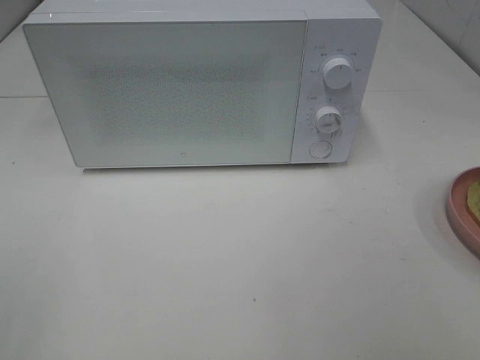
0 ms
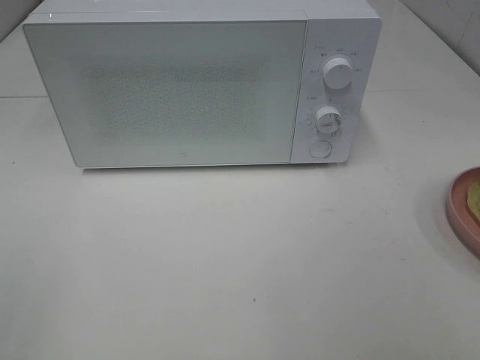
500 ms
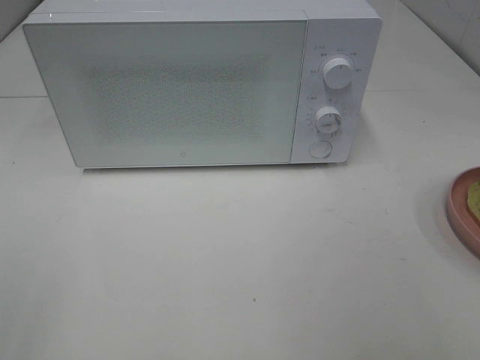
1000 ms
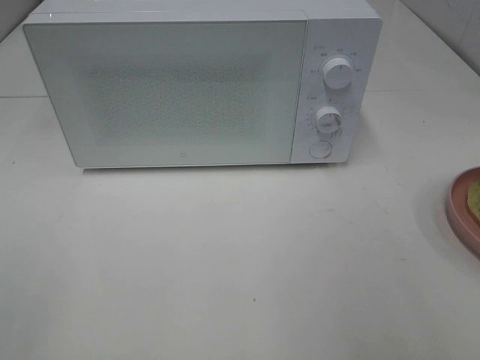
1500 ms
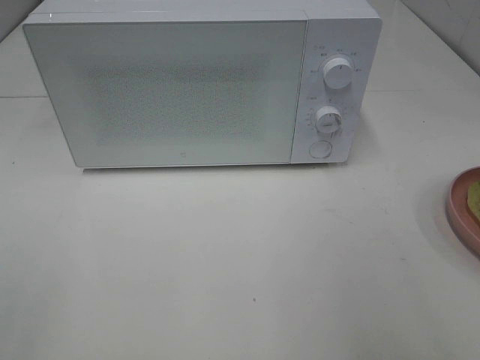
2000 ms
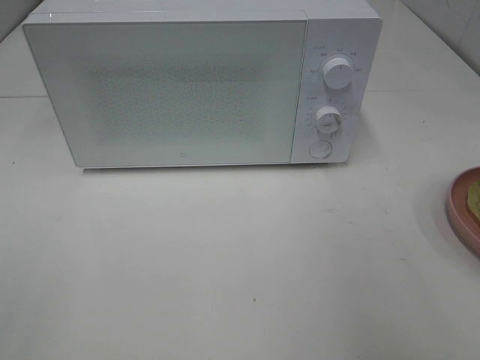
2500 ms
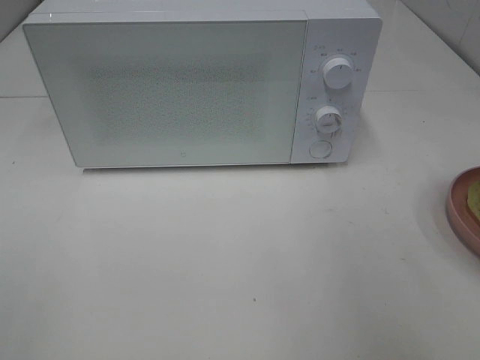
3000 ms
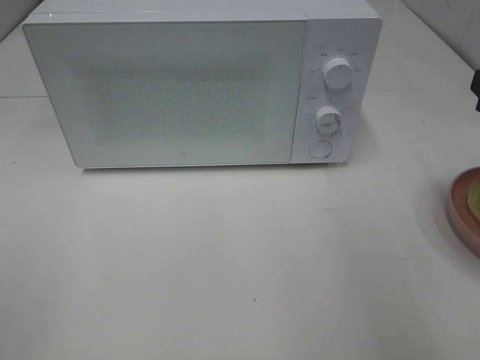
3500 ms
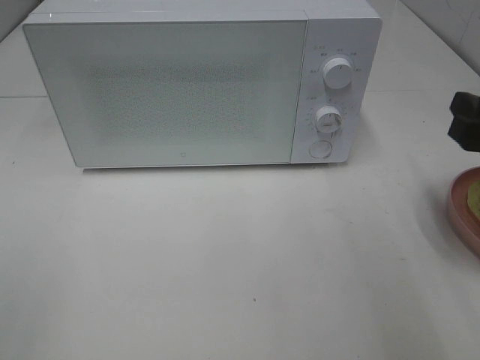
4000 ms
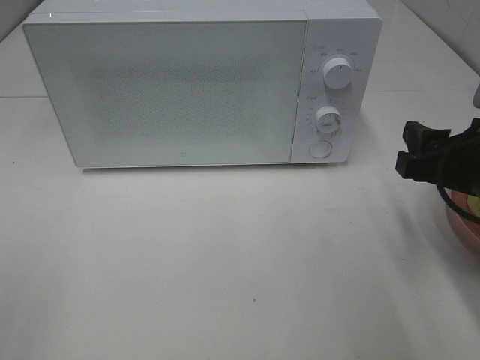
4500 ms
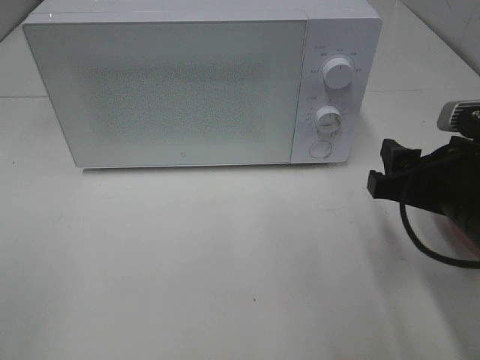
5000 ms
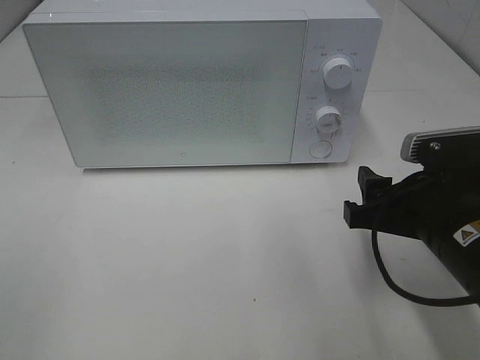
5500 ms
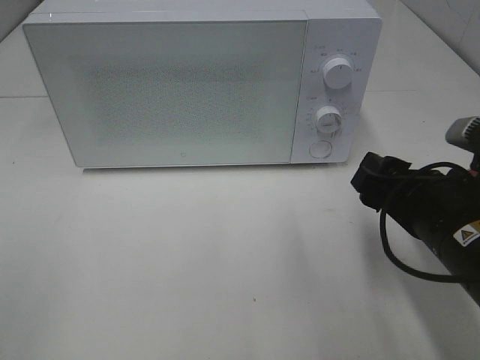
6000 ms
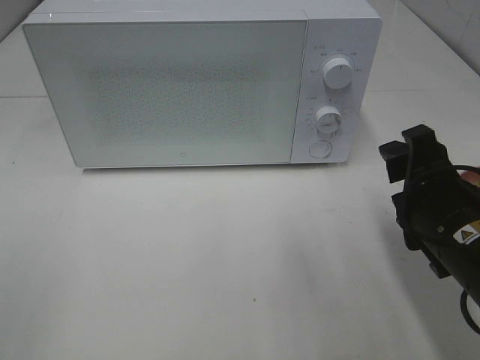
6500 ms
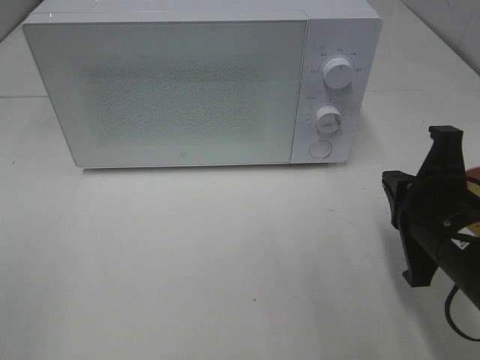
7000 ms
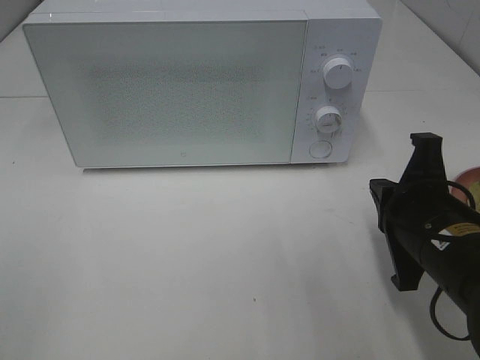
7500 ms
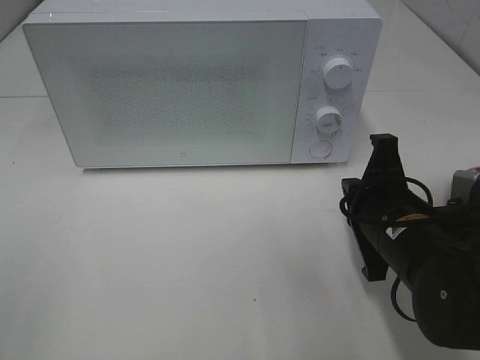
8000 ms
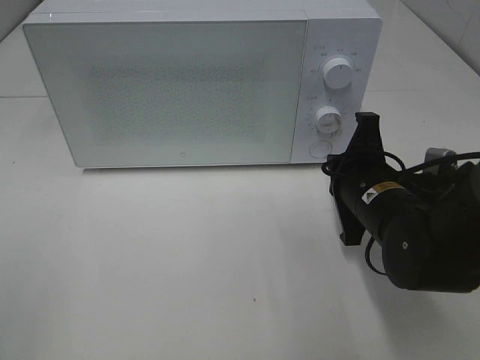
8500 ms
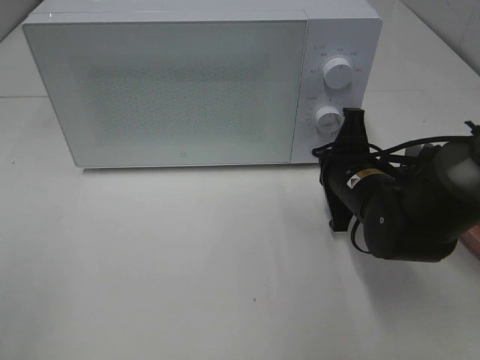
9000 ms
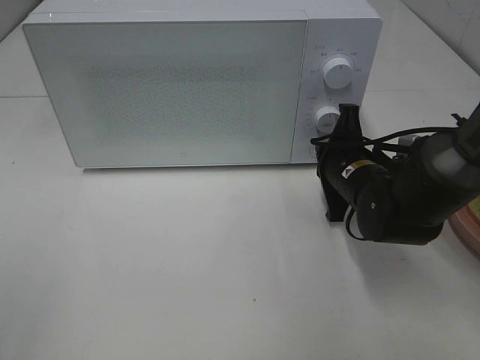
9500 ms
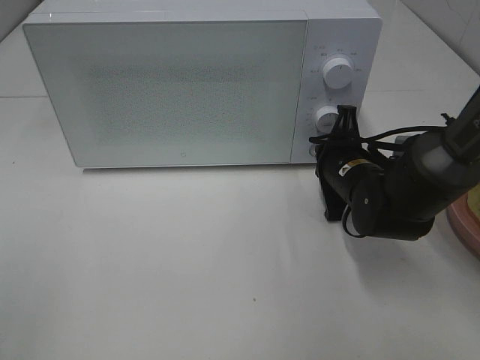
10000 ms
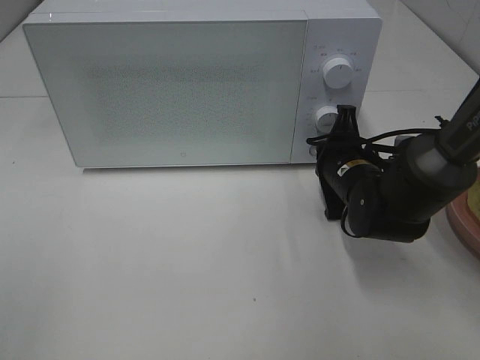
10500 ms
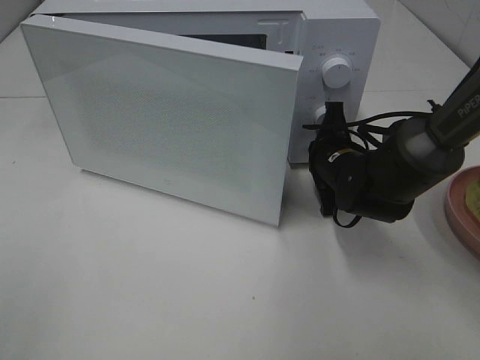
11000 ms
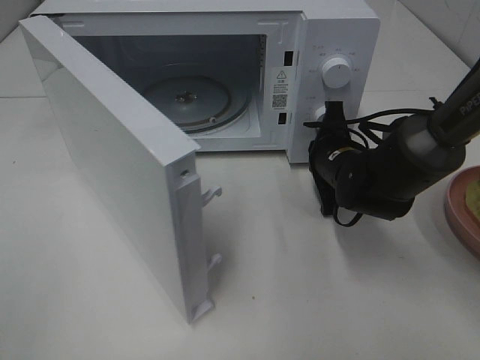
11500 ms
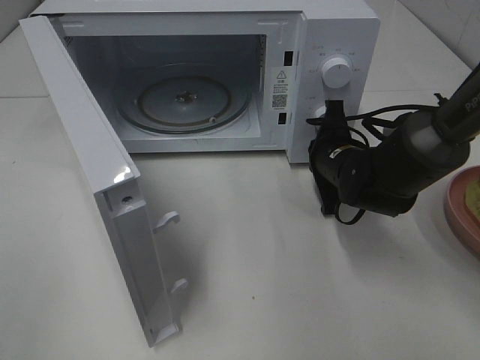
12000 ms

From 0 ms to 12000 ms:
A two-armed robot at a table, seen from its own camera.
Task of the whole recording: Heat Sandwich.
From 2000 ms to 4000 ms: The right gripper travels forward and downward by some 15 cm.
From 4000 ms to 6000 ms: The right gripper is displaced to the left and downward by about 10 cm.
From 6000 ms to 8000 ms: The right gripper moves about 5 cm, and closes up.
From 8000 ms to 10000 ms: The right gripper travels forward by some 10 cm.

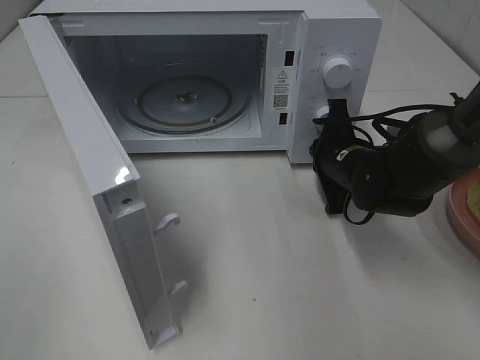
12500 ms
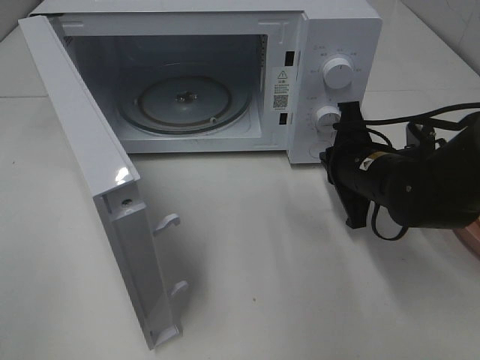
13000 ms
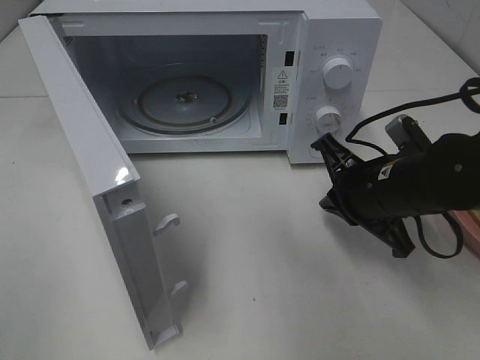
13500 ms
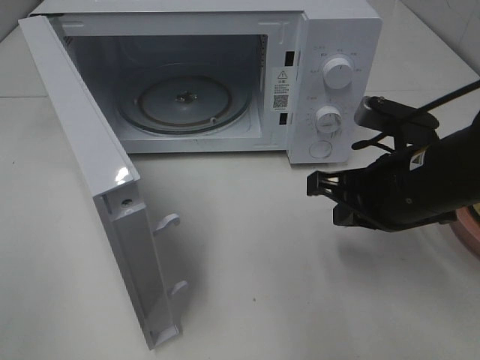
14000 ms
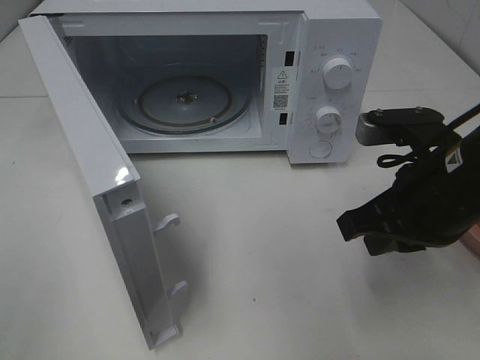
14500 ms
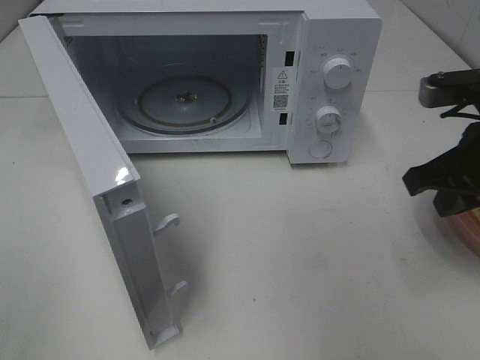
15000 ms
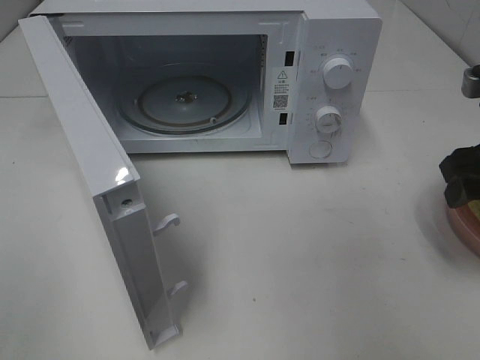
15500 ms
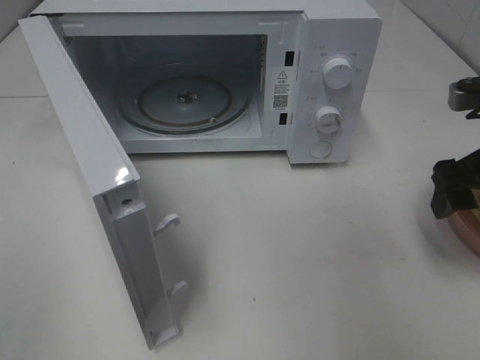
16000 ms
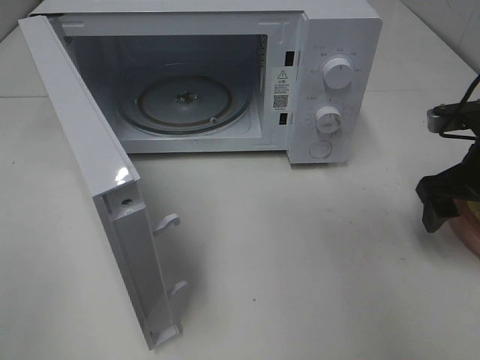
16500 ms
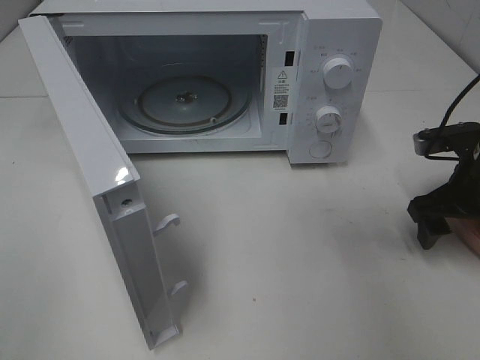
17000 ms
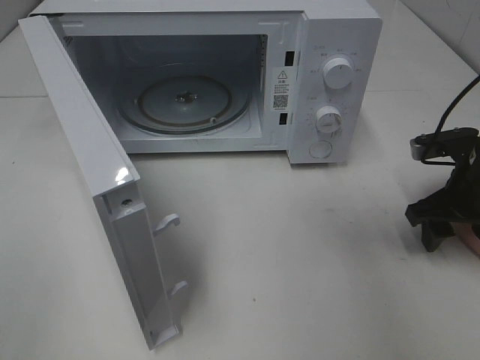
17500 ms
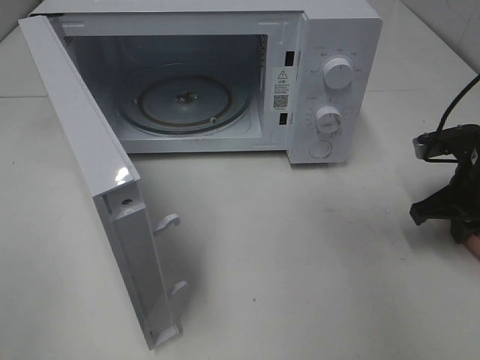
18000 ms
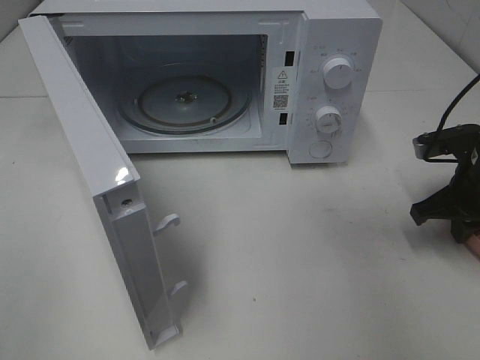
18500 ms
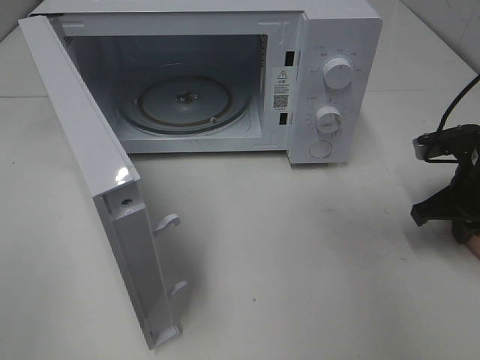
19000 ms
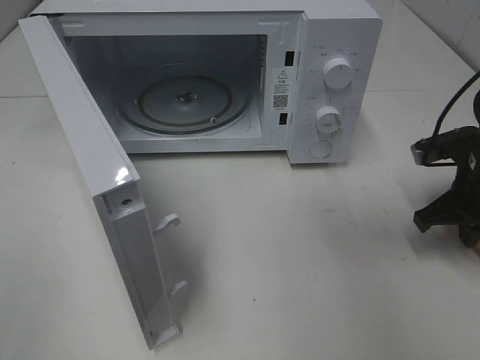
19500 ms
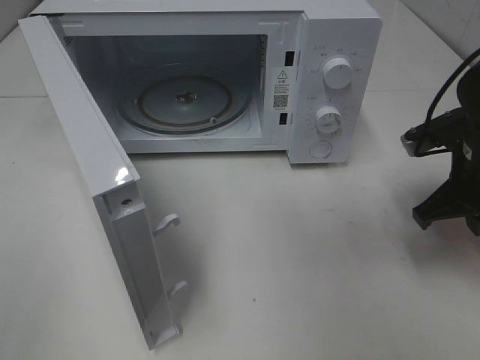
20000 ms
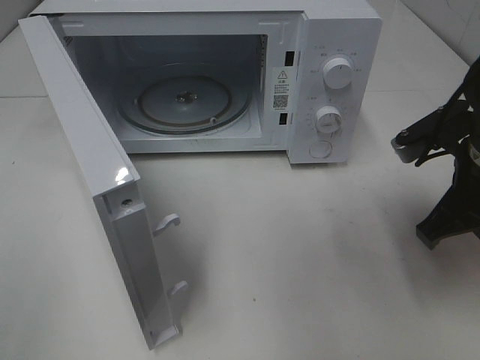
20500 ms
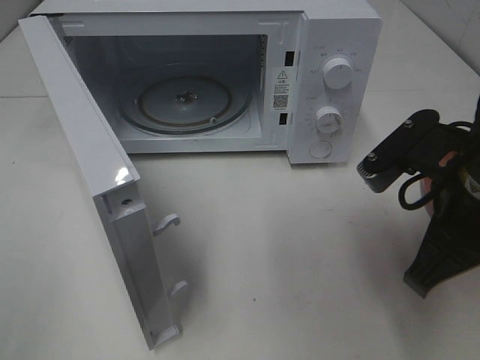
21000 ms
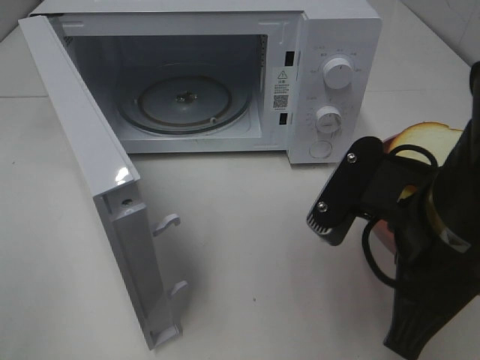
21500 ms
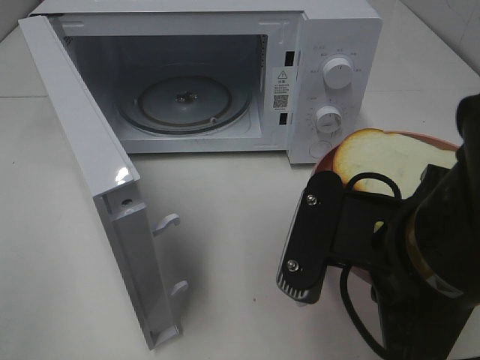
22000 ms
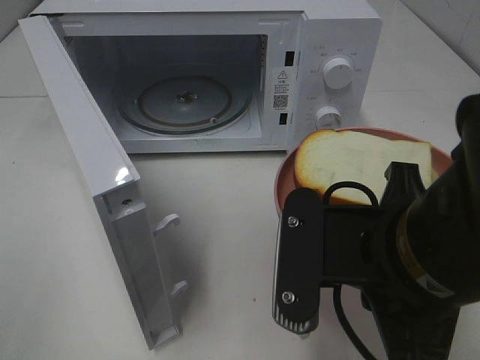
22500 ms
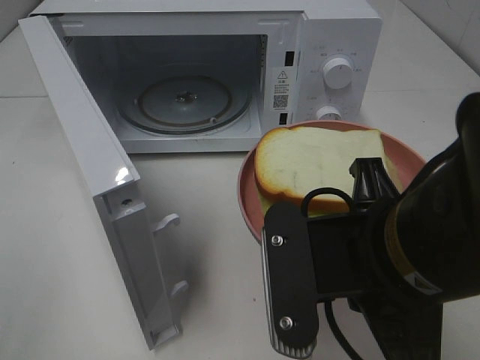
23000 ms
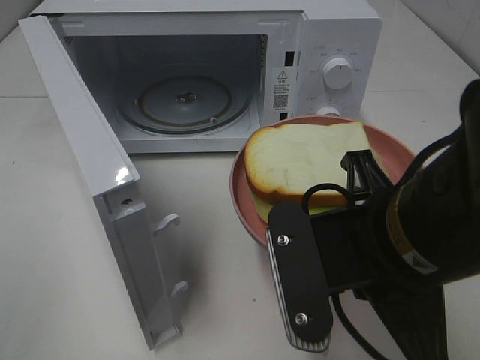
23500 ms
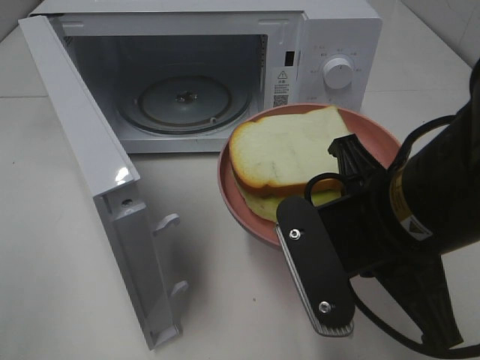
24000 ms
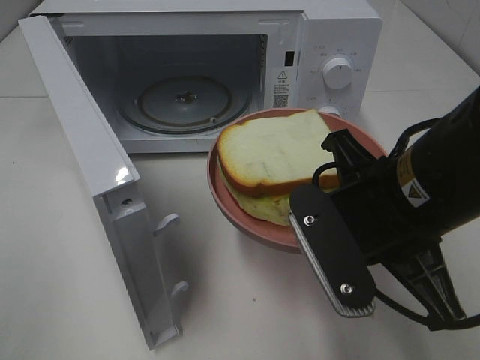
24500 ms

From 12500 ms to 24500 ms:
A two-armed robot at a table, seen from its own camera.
Task of the whole recording: Heat Sandwich.
Step, from 13000 ms to 19500 ms: Right hand: grab the plate with the sandwich.
From 12500 ms to 14500 ms: The right gripper shifts some 20 cm backward and upward.
From 14500 ms to 16500 ms: The right gripper goes approximately 15 cm to the right and forward, and opens its fingers.
From 16500 ms to 18500 ms: The right gripper closes up.
From 18500 ms to 20500 ms: The right gripper is displaced upward, to the left and backward by approximately 15 cm.
From 20500 ms to 22500 ms: The right gripper travels to the left and backward by about 15 cm.
From 22500 ms to 24500 ms: The right gripper travels forward by approximately 5 cm.

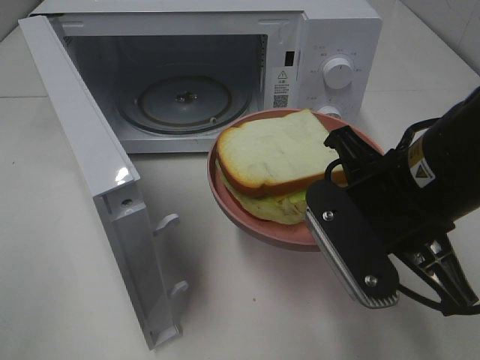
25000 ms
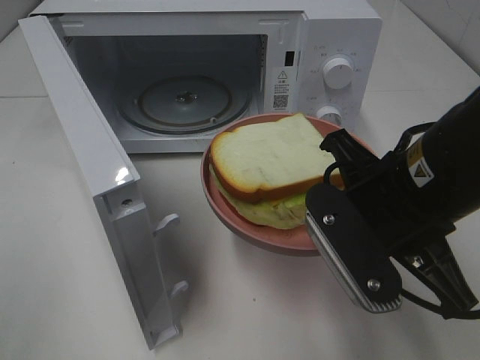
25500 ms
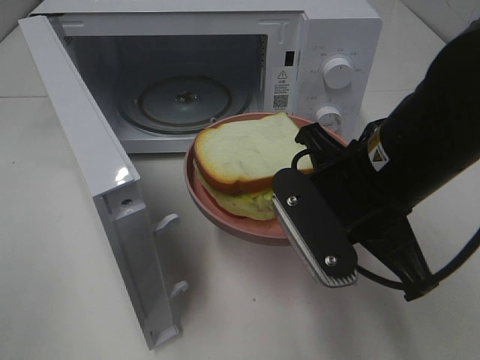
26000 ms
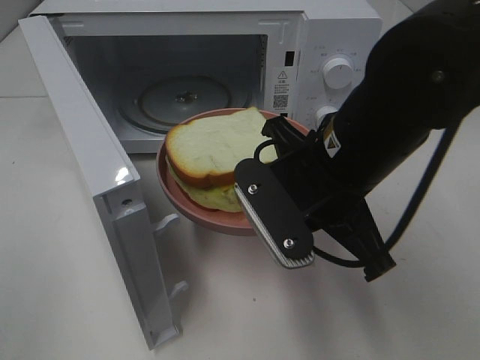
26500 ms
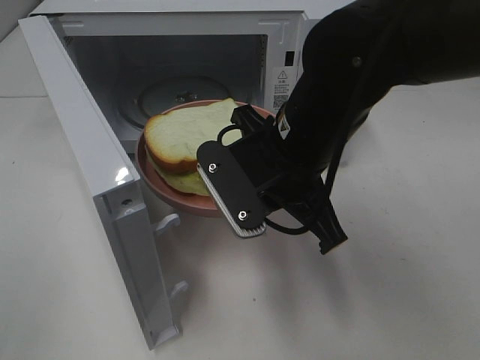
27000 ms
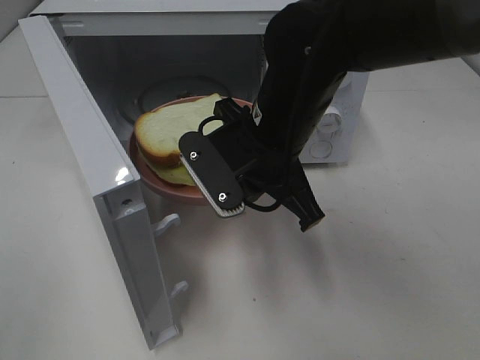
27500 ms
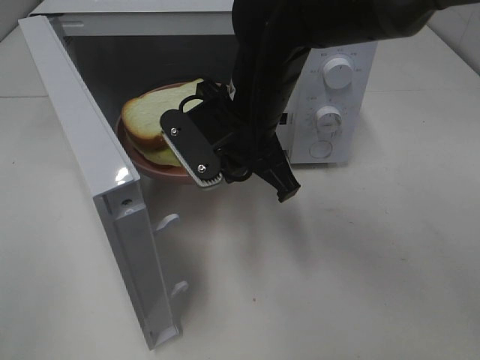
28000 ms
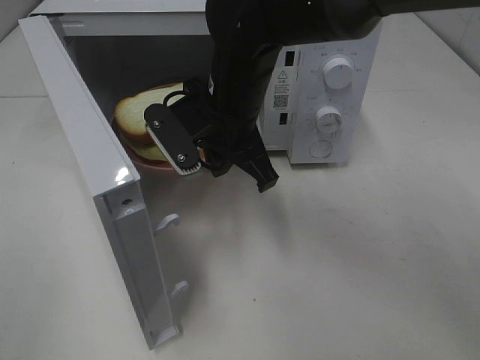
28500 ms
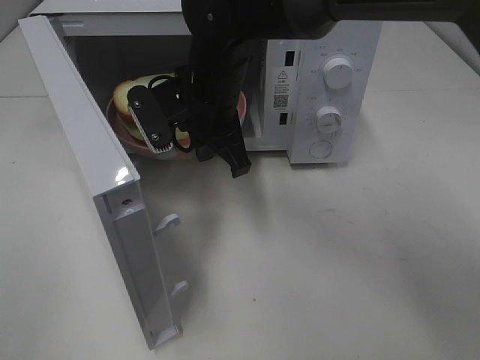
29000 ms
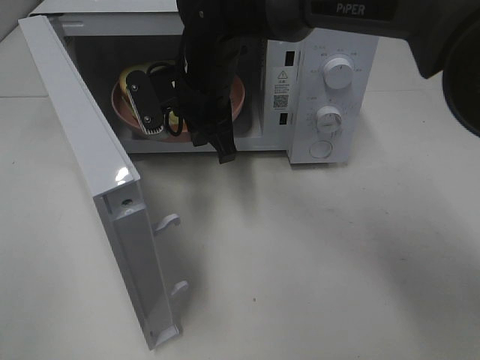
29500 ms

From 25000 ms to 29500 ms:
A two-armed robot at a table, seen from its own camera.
Task of the whole recording: Heat Sandwich.
From 25000 ms to 27000 ms: The right gripper shifts roughly 10 cm to the left and forward.
From 27000 ms to 29500 ms: The right gripper goes roughly 15 cm forward and to the left.
